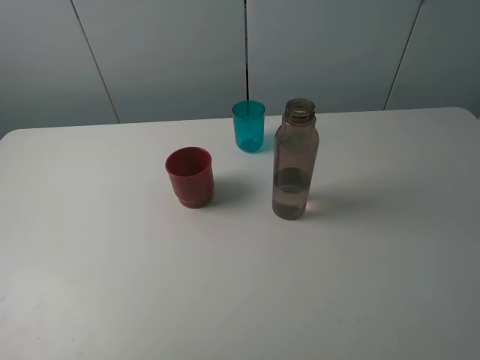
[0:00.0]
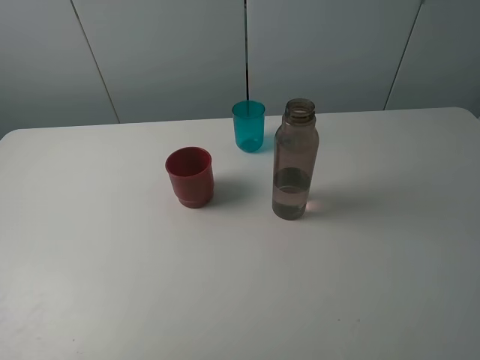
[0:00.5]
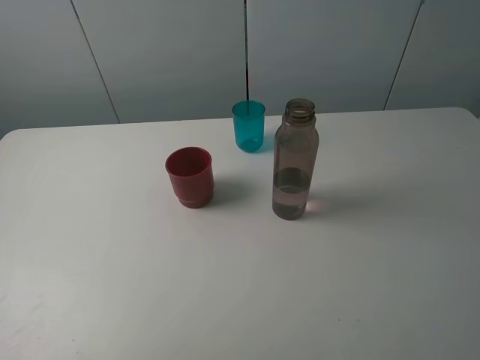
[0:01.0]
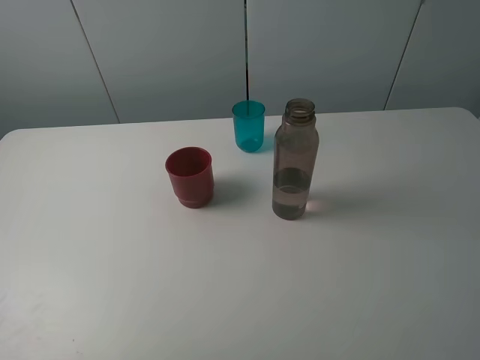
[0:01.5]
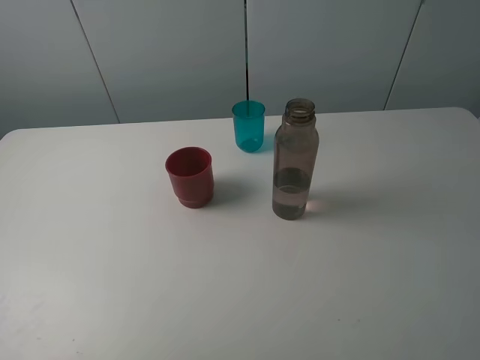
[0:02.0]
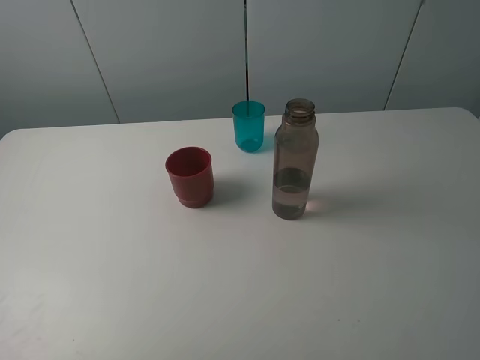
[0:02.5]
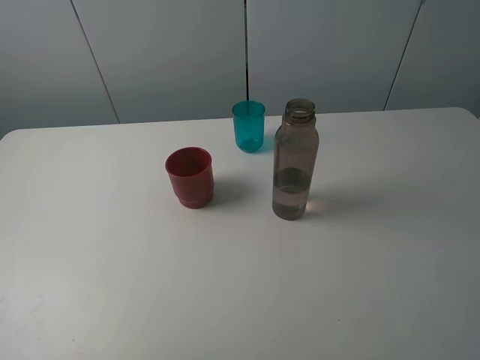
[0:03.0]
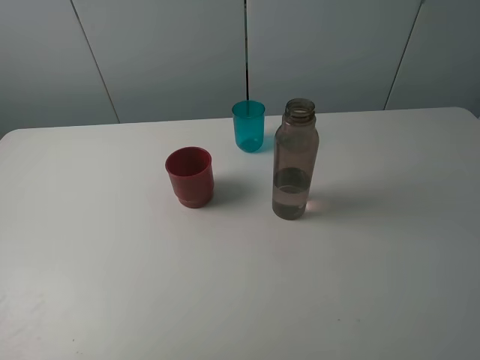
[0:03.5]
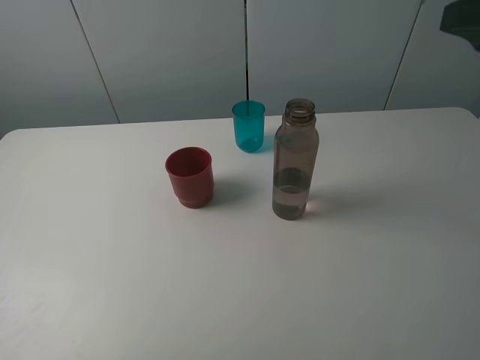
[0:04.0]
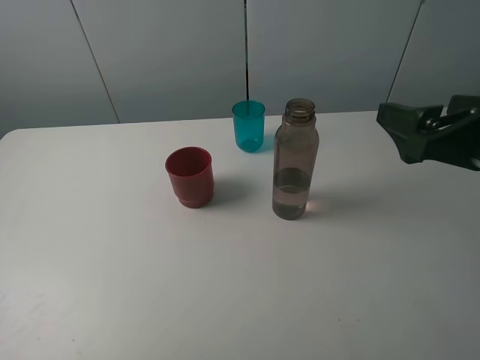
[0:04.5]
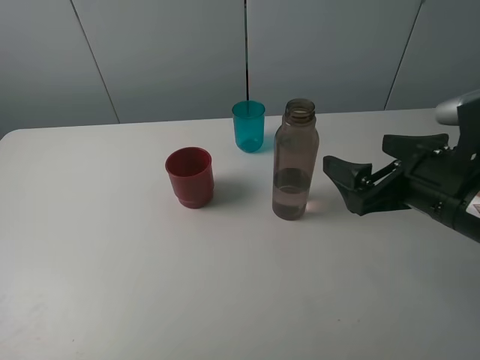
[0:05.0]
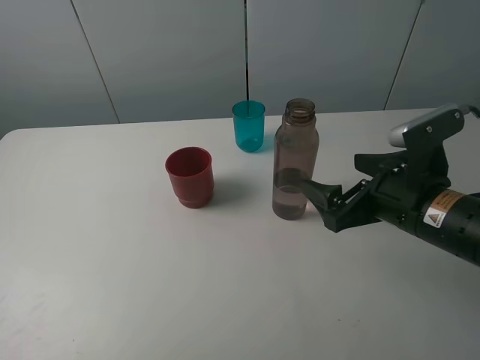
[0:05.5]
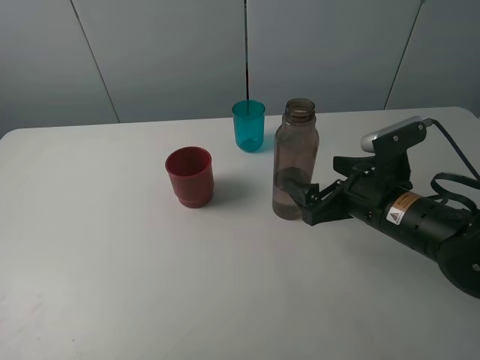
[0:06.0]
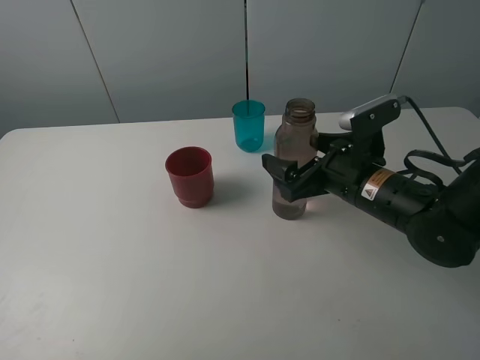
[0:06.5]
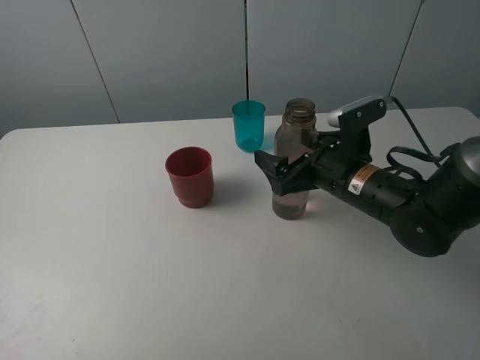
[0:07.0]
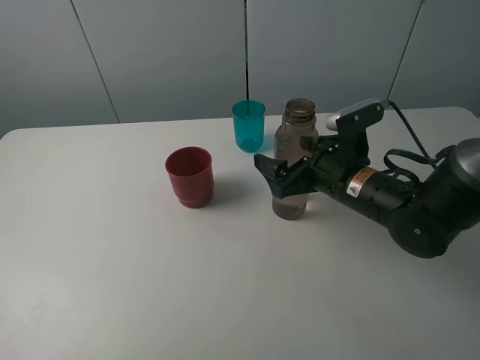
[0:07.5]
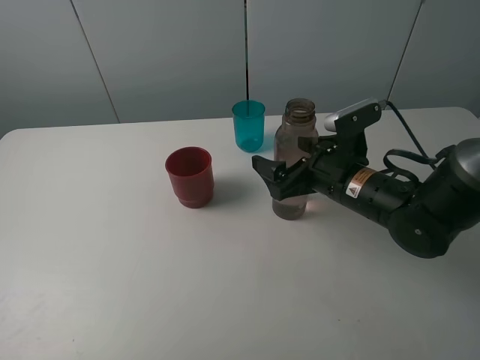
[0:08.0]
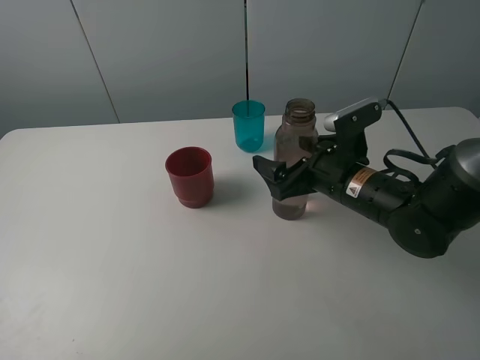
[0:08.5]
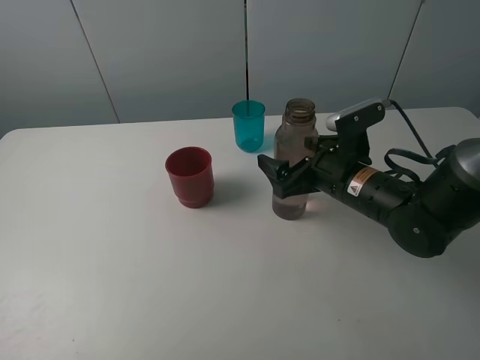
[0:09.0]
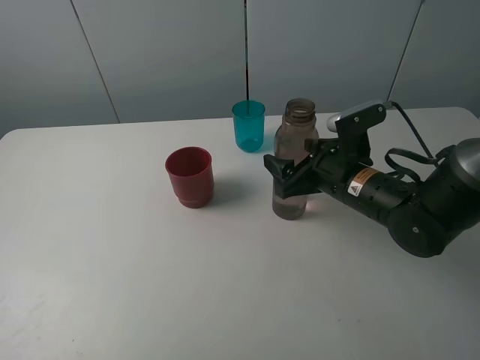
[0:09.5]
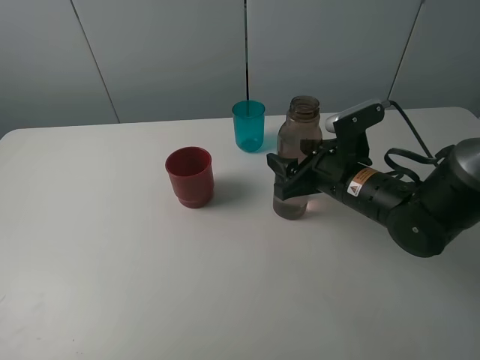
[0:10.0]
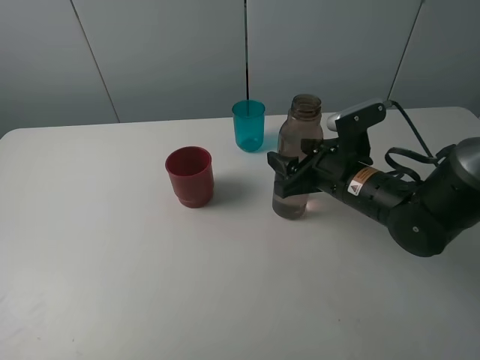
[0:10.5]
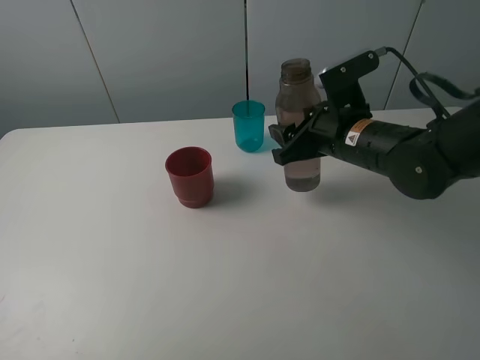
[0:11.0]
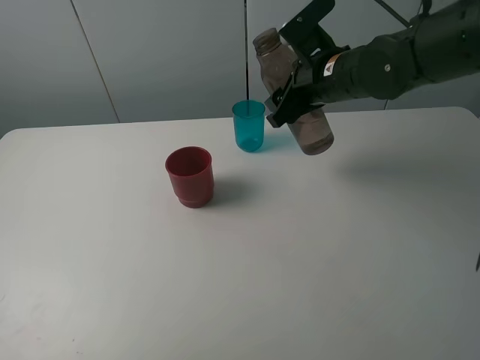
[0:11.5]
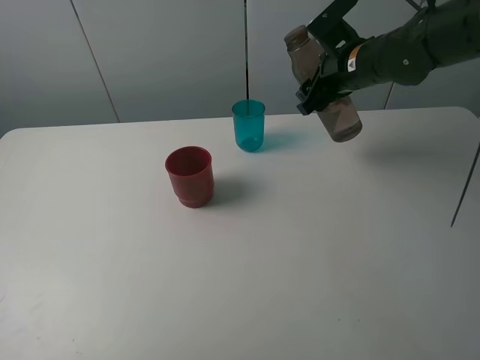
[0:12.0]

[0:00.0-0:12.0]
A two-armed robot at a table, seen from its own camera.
Task of the whole recording: pick up the bottle and pour water into the cup, then pick up the cup containing water and pour it into another cup.
Step, 0:00.0 to 0:09.5: Grasp the brown bottle with the right gripper.
0:00.0 to 0:02.0: Both grippers stay about where they are.
0:02.0 to 0:04.0: The right gripper travels forward by roughly 20 cm.
0:04.0 to 0:06.0: The right gripper travels downward by about 20 cm.
0:06.0 to 0:08.0: The right gripper moves roughly 5 cm.
0:08.0 to 0:10.0: The right gripper closes its fingers.
0:10.0 to 0:12.0: The right gripper heads forward and upward, covering approximately 15 cm.

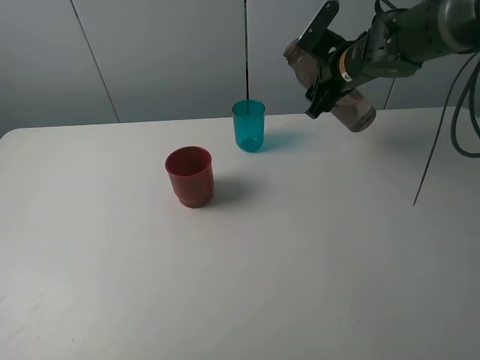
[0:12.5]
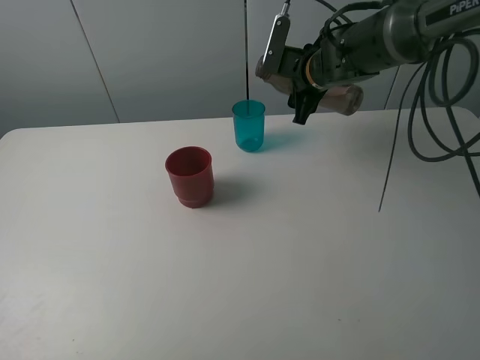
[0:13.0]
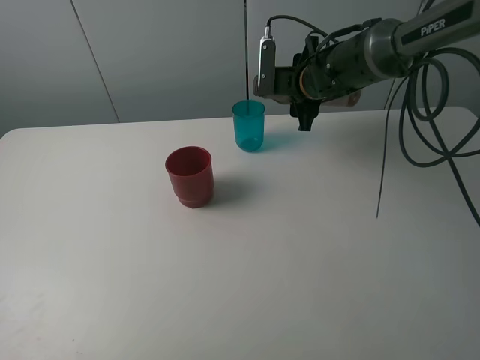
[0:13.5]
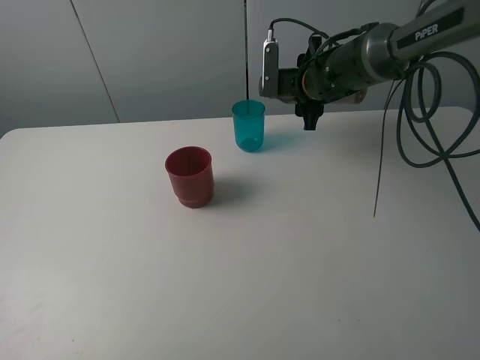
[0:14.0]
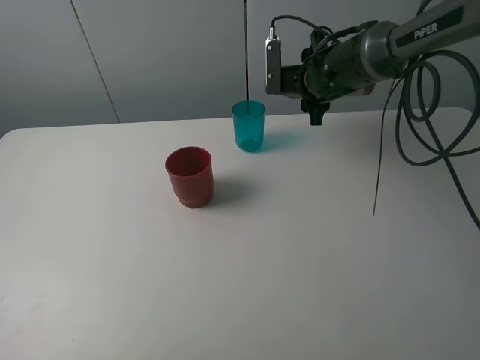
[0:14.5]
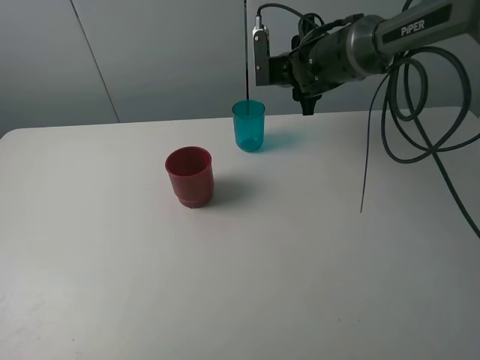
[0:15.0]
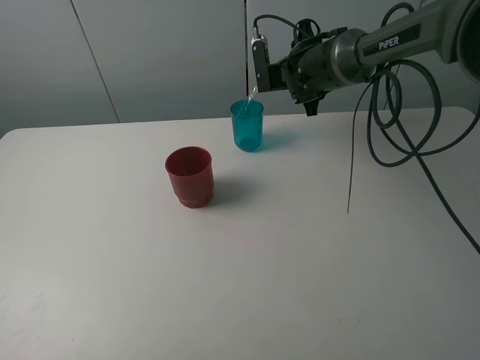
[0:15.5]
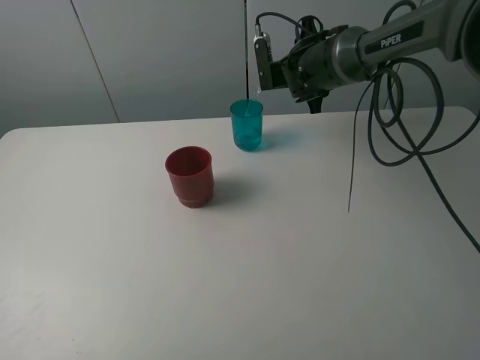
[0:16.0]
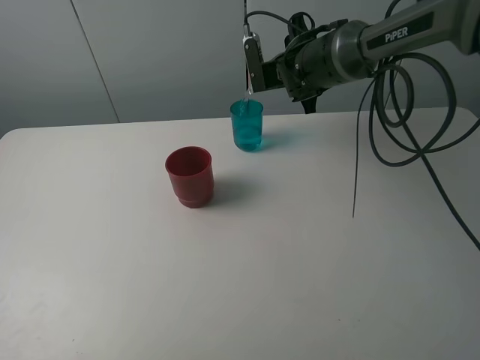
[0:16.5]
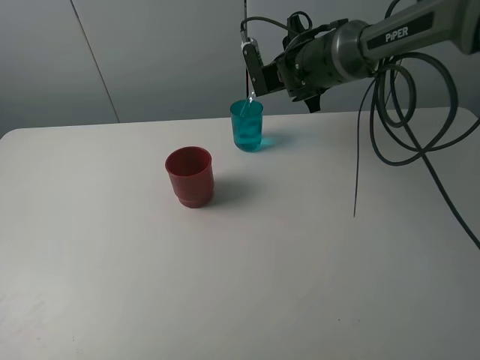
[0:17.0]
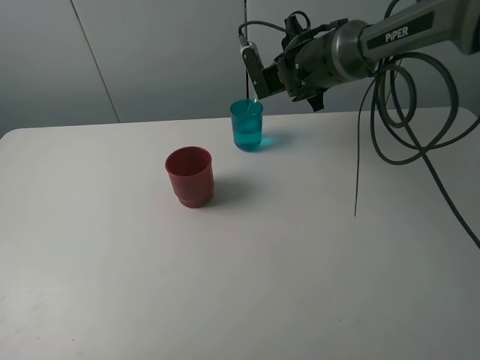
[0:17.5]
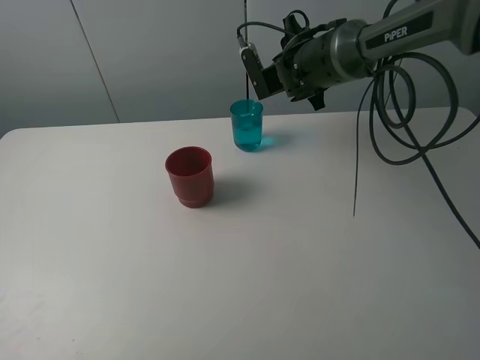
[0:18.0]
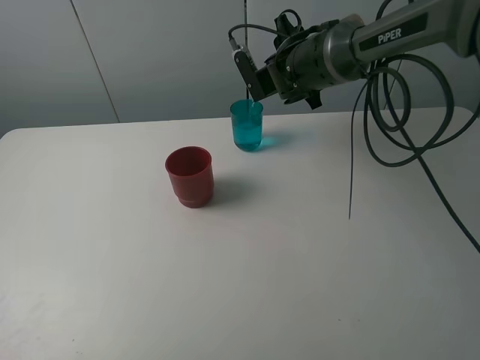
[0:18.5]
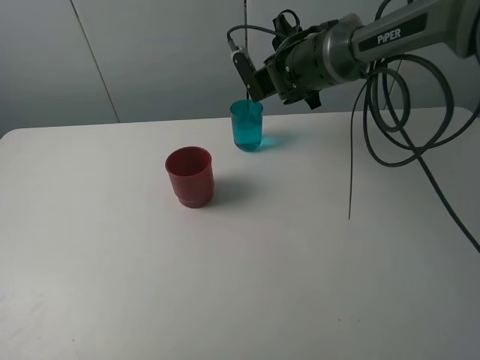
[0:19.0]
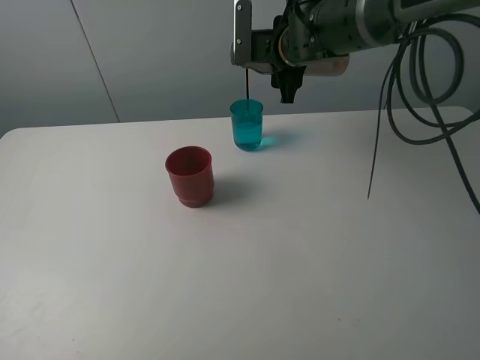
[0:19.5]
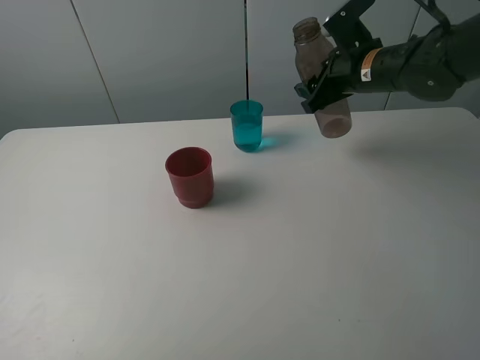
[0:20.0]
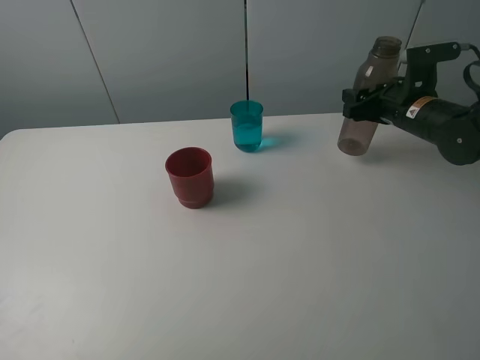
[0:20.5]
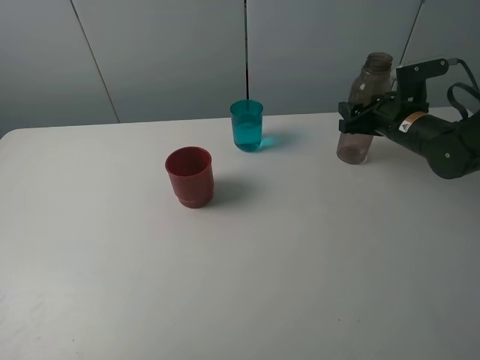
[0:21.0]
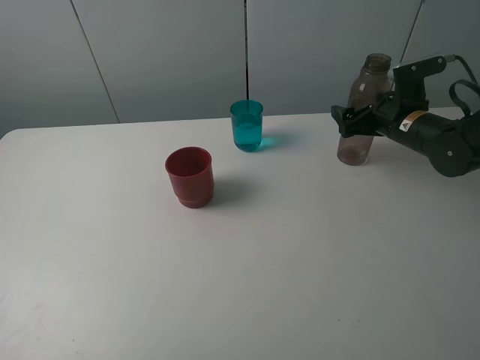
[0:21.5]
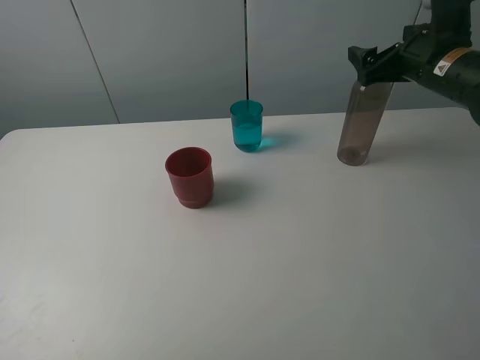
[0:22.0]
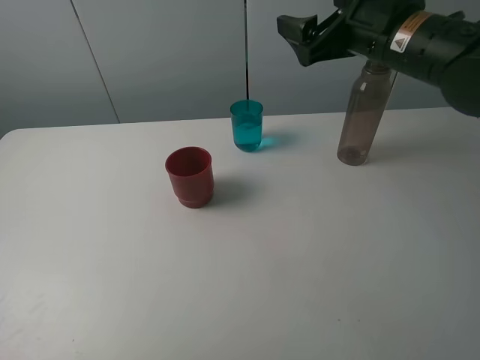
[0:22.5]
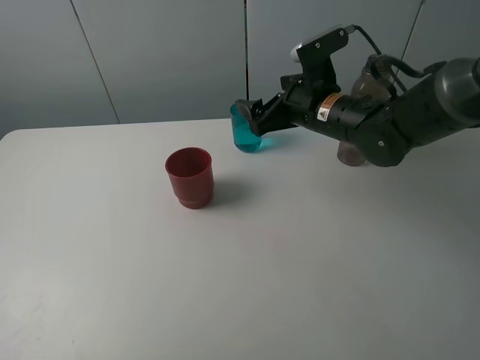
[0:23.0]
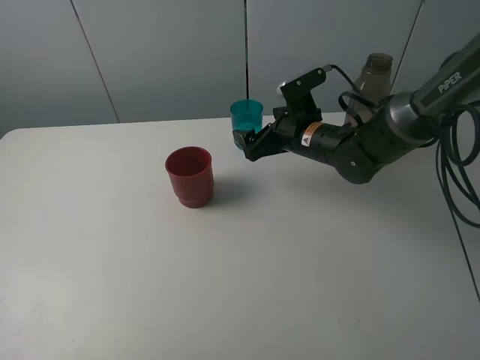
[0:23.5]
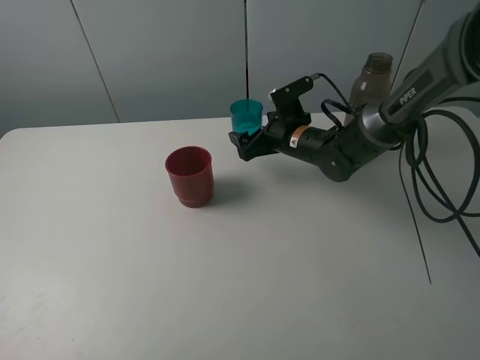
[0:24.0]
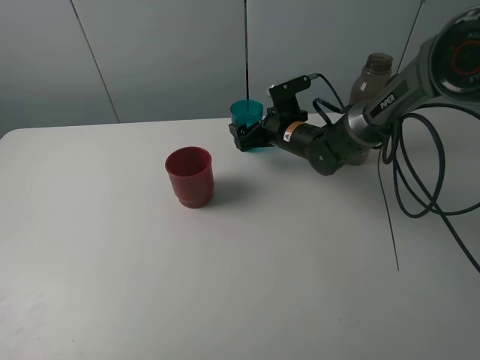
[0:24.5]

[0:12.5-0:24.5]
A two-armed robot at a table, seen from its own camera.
Task of the whole recording: pick up the bottle and pour water into the cup, then pick up the cup containing water and pour it into another cup.
Step, 0:12.5 to 0:19.0: Pour water from brown bottle to blue cup with the right gripper.
Step, 0:19.5 to 0:21.5: Place the brown bottle with the right gripper.
0:12.5 to 0:14.5: The right gripper shifts by about 5 cm.
0:14.5 to 0:16.5: There are only small adjustments of the grippers.
0:16.5 to 0:18.5: There are only small adjustments of the grippers.
0:18.5 to 0:20.5: The right gripper is displaced to the right by approximately 20 cm.
0:20.5 to 0:22.5: The right gripper heads upward, to the left and backward, covering approximately 15 cm, and opens up.
0:22.5 to 0:24.5: The right gripper goes about 20 cm downward and forward.

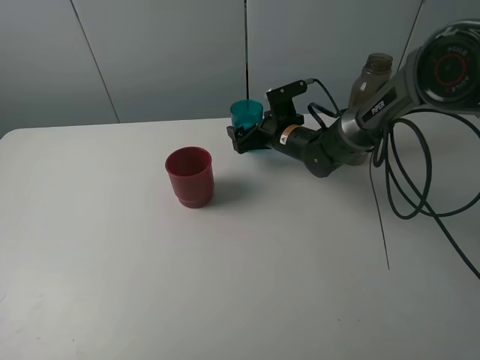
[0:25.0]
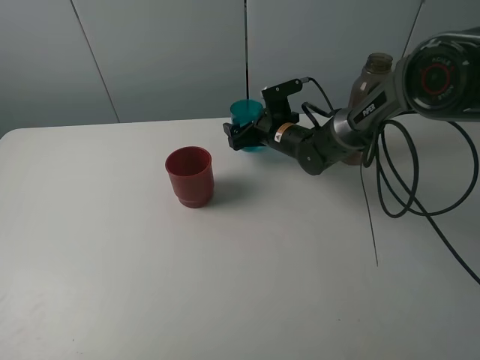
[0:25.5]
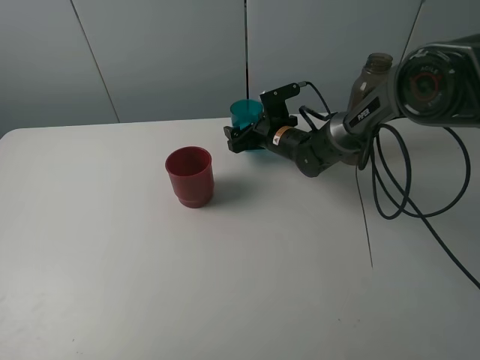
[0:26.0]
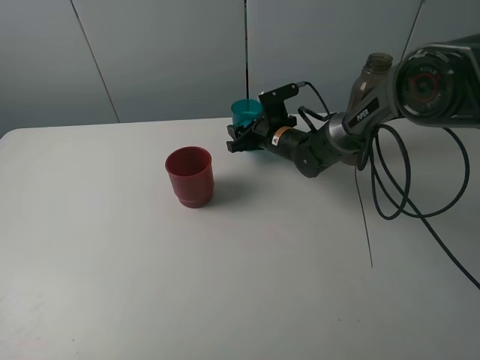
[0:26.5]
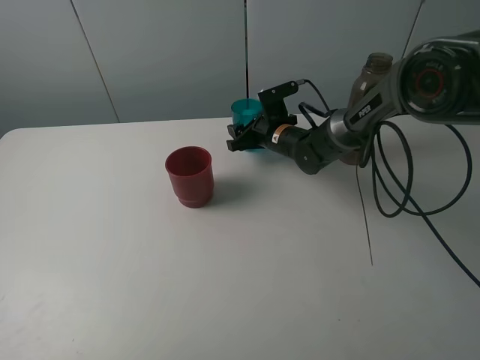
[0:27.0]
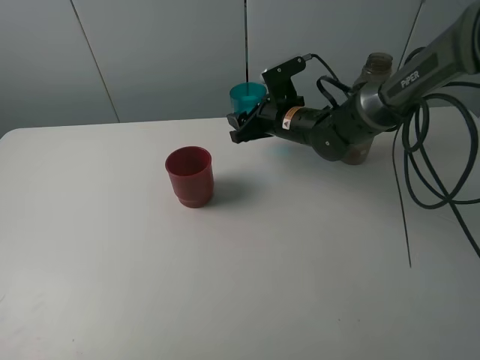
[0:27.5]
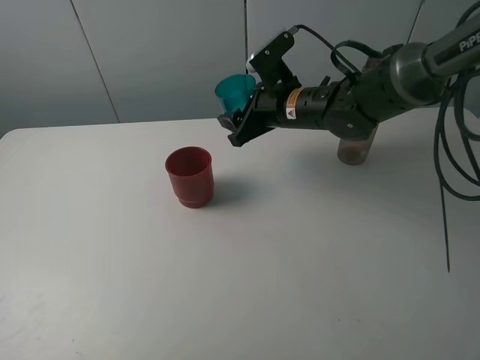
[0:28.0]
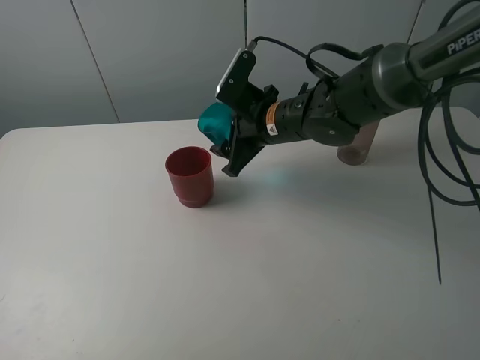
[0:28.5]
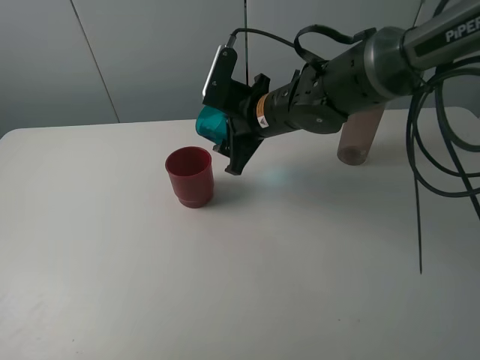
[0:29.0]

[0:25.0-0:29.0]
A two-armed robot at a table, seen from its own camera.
Task of the whole recording: pick up the bottle and pour water into the cup, then pick up the cup containing water and pour it into another cup.
0:25.0 to 0:27.0: The right gripper closes its fingers.
0:27.0 to 0:29.0: The right gripper goes about 15 cm upward and backward.
